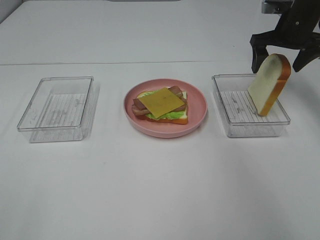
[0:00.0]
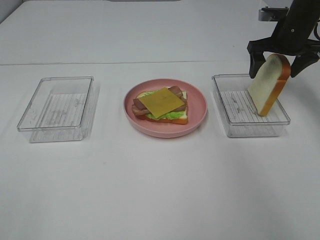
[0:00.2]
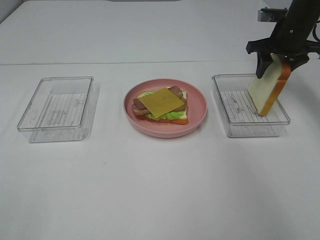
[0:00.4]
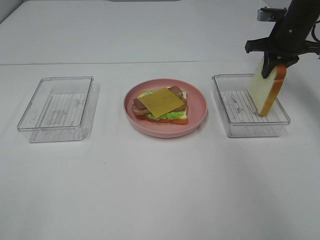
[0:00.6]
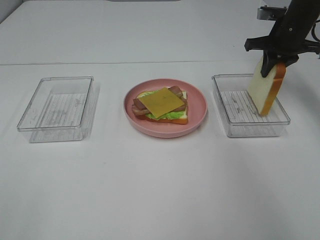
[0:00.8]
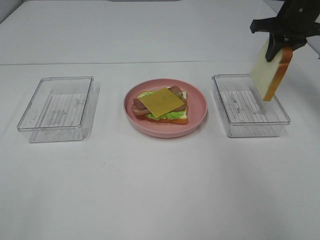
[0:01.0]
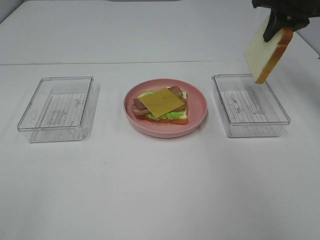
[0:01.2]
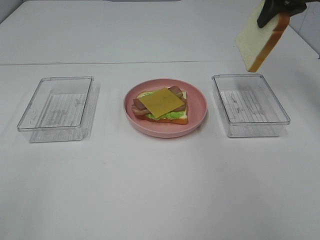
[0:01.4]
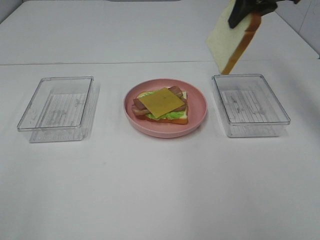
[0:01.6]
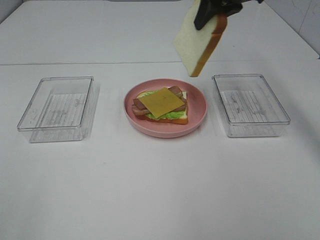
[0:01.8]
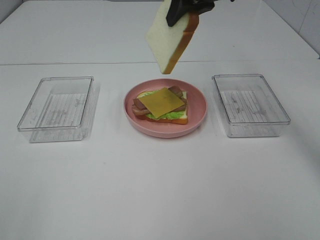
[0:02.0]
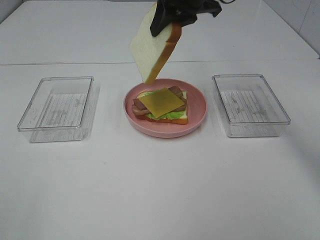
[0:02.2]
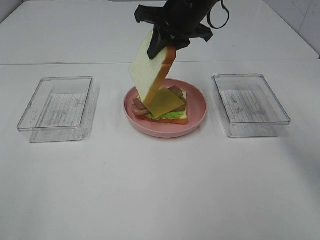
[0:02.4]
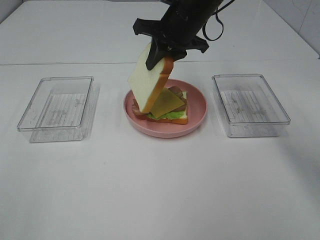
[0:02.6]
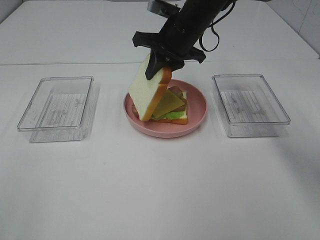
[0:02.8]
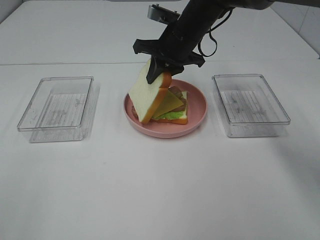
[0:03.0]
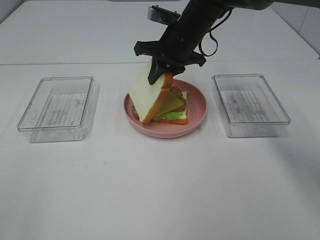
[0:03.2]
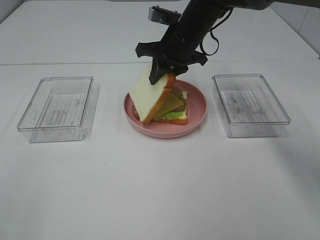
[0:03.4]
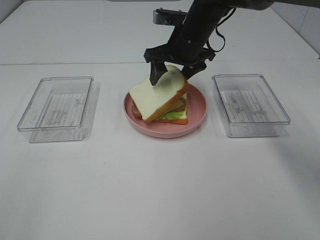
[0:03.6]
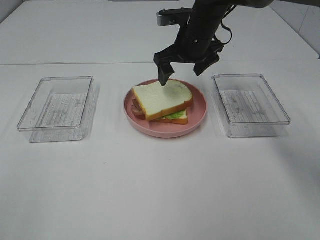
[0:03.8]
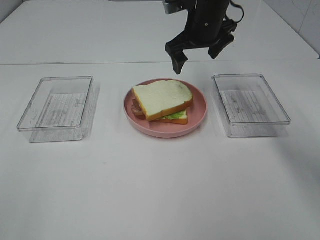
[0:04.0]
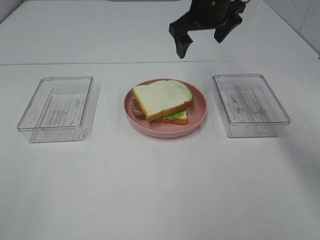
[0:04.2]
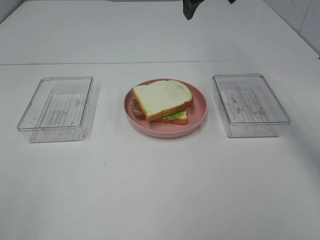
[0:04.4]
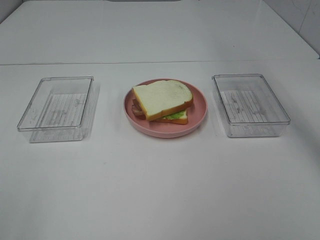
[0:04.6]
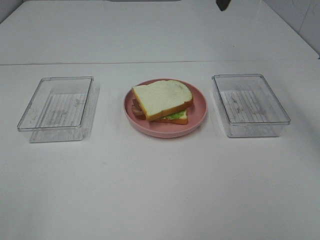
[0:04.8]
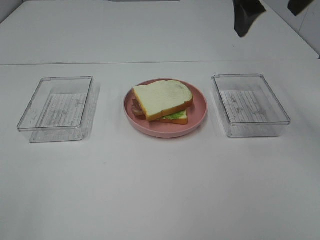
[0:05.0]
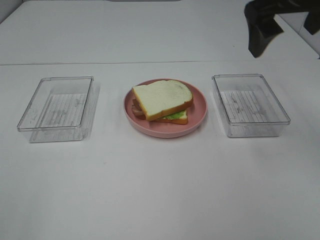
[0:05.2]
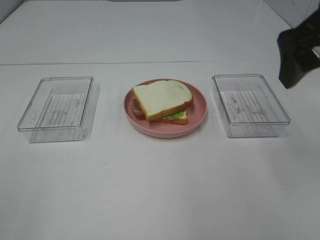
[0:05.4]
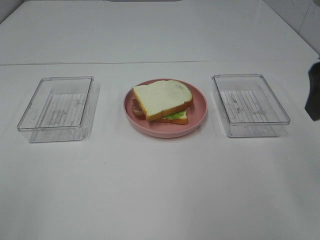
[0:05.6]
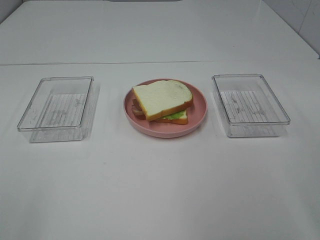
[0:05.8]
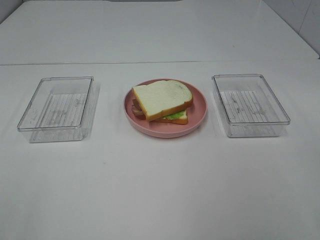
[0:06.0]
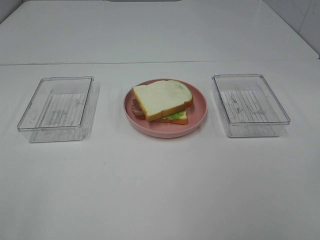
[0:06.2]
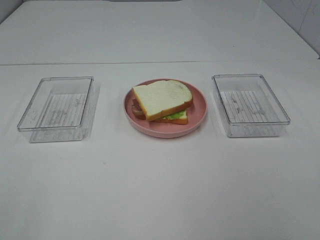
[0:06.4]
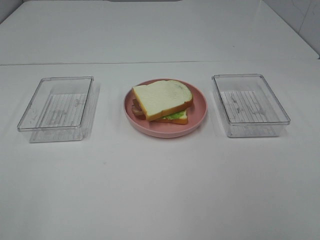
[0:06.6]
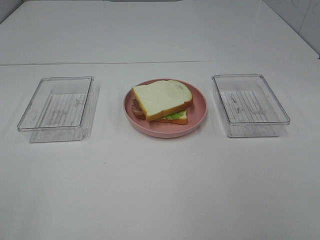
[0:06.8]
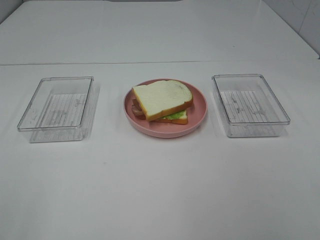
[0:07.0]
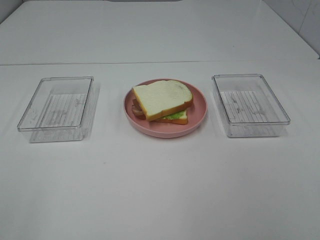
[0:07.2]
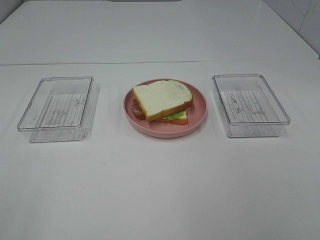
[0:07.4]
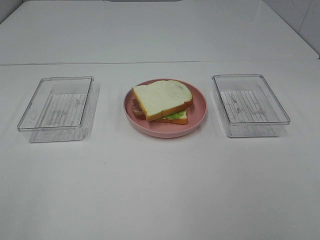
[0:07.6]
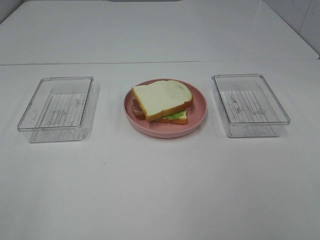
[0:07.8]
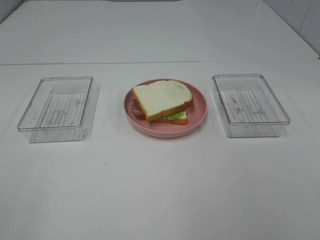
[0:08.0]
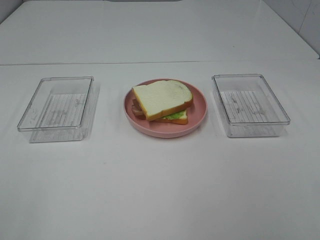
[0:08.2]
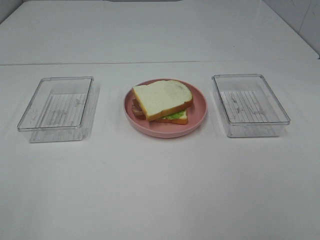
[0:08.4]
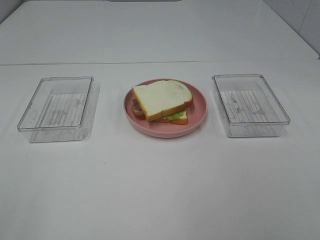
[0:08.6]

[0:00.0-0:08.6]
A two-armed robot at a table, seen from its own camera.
Task of the whole recording: Make sandwiches.
Step, 0.6 to 3.8 s: Right hand:place the bread slice on the cheese slice.
0.0 to 1.4 s: The right gripper goes some 10 cm upward, and closes its fingers.
1.4 to 2.8 s: The right gripper is displaced to the left and downward by approximately 20 cm.
2.8 to 4.4 s: The right gripper travels upward by approximately 15 cm, and opens up.
4.4 to 5.8 s: The right gripper goes roughly 30 cm backward and to the right.
7.2 to 8.6 s: Both grippers stay about where they are.

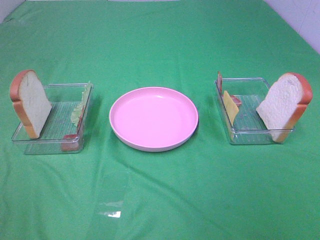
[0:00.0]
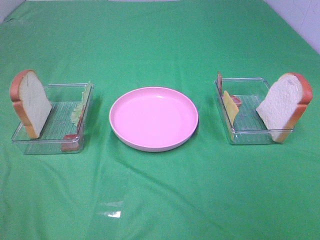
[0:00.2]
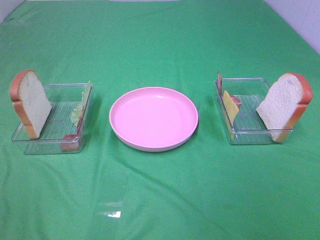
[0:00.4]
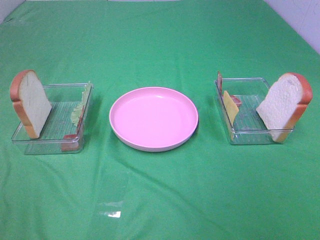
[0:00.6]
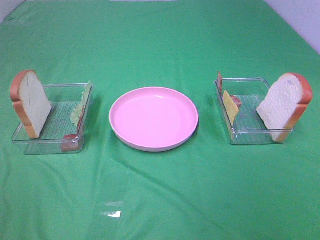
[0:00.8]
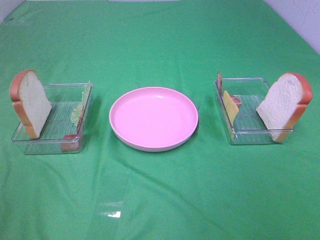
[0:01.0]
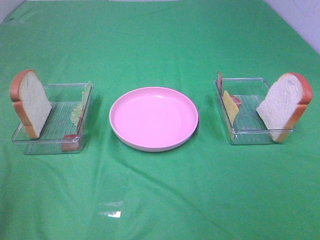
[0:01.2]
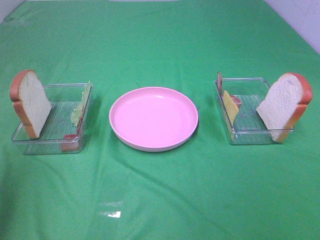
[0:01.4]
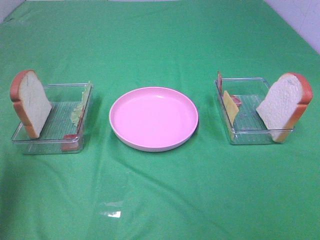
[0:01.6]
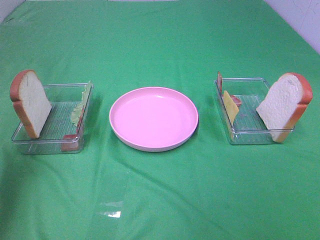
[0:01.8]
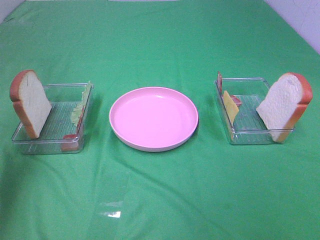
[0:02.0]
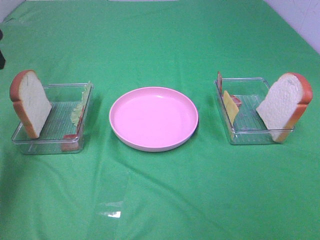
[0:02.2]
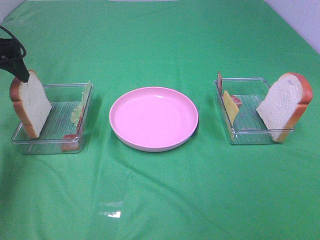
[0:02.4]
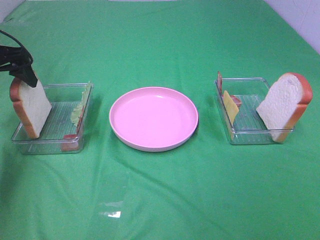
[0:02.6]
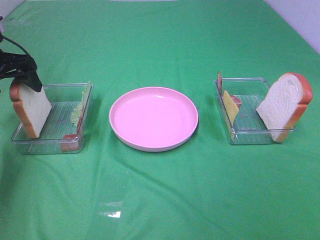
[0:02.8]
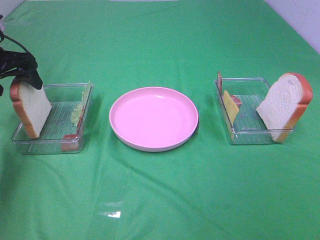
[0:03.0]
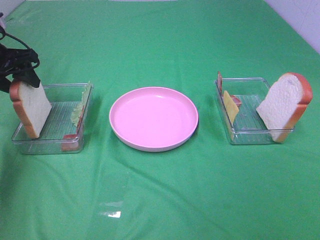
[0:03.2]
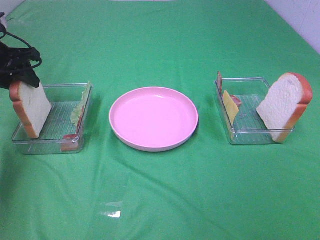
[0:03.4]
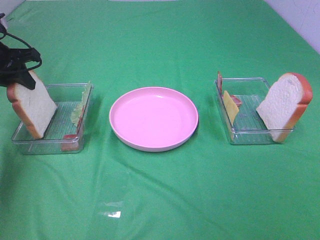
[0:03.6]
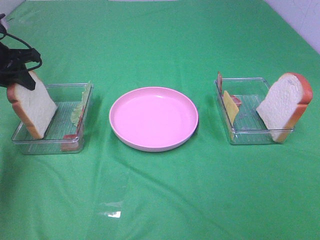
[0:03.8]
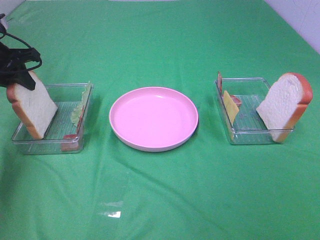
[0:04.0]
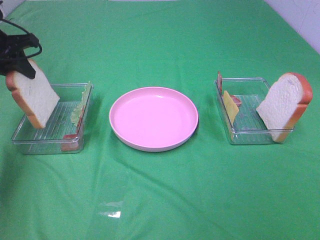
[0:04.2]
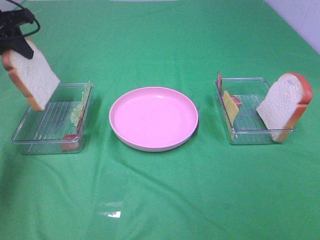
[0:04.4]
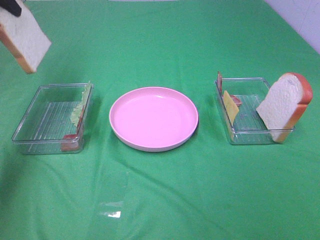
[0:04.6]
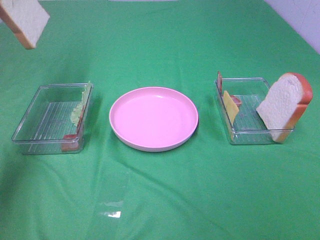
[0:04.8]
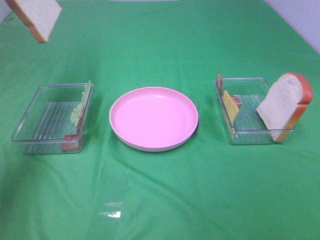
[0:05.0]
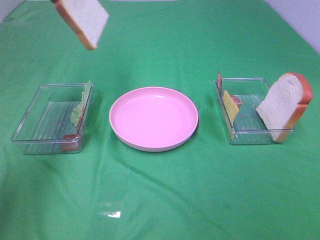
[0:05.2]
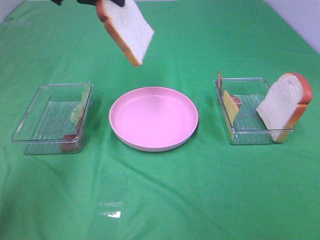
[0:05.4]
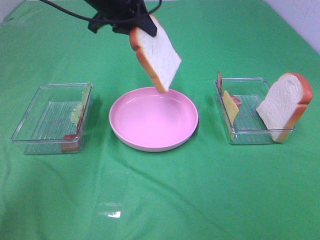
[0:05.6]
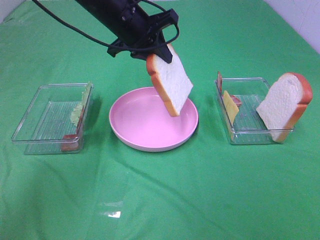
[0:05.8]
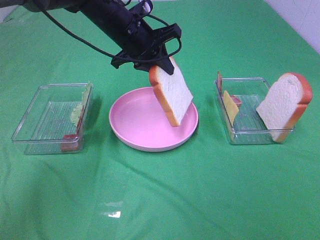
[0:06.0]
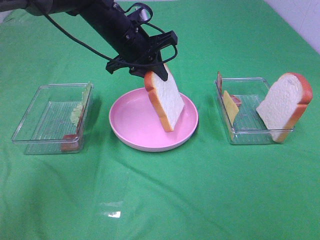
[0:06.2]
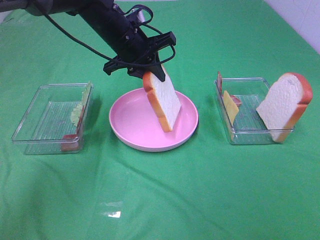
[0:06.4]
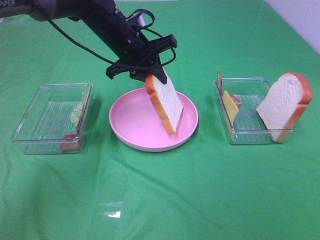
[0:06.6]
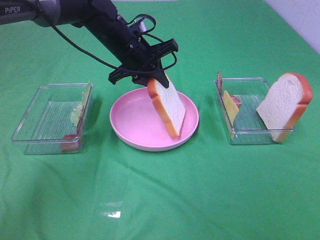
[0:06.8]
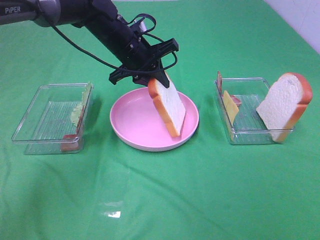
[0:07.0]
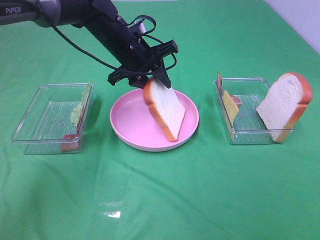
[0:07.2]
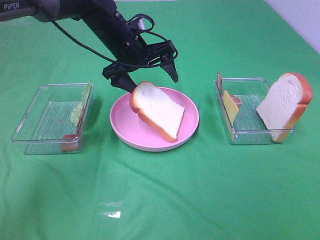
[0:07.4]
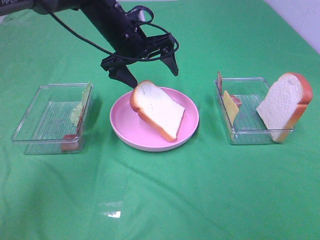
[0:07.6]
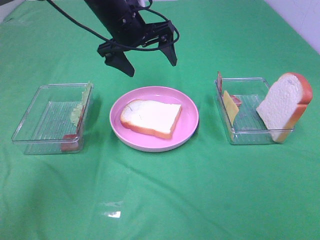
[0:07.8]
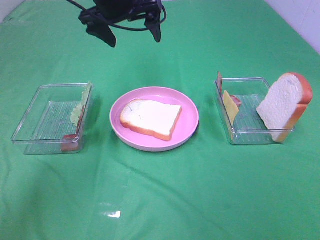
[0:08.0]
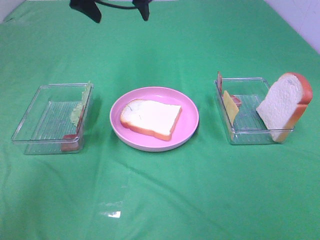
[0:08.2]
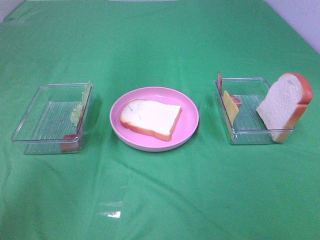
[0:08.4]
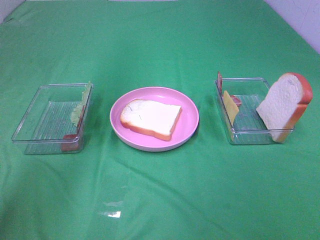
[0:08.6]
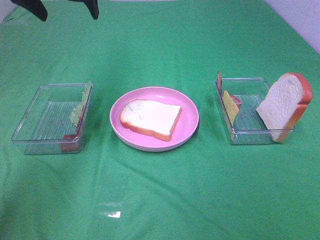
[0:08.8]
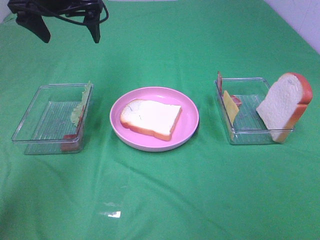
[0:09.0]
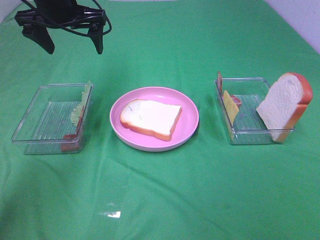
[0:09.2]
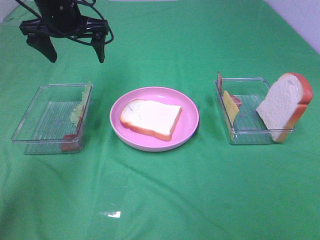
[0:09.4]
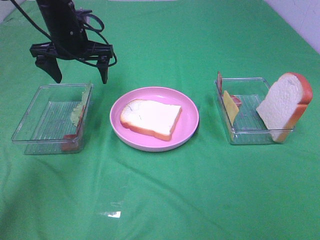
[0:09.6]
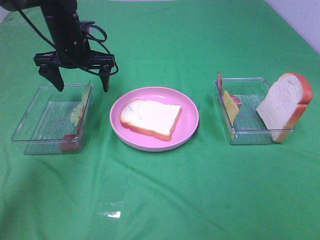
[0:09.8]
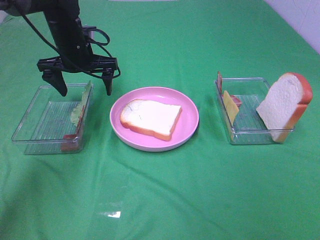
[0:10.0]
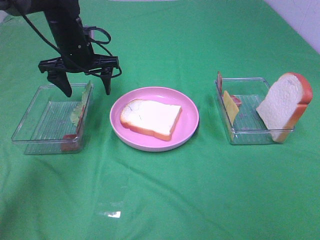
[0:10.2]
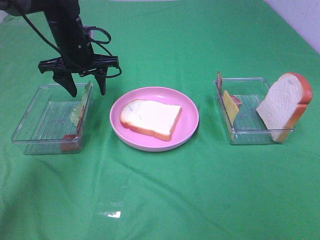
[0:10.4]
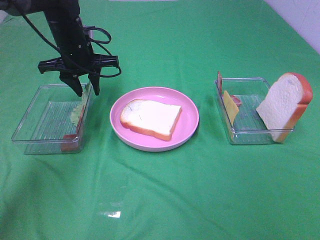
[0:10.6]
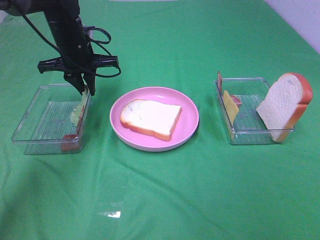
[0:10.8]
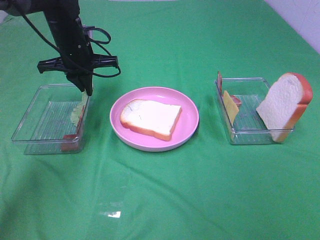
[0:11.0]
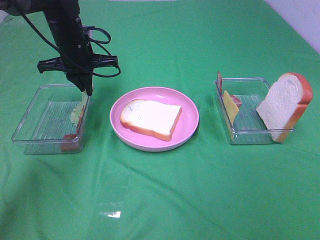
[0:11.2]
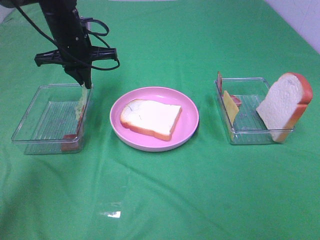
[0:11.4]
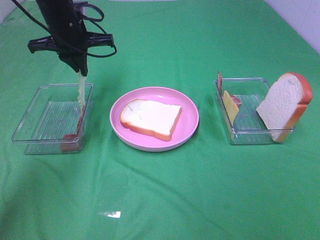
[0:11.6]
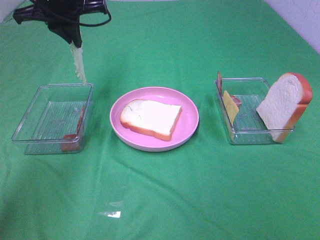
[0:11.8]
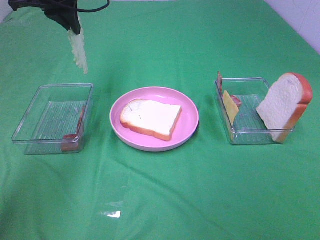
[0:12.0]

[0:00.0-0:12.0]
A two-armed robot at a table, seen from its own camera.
Task of the whole recording: Make sandwiches.
Step, 0.0 to 3.6 s: Left hand:grab the bread slice.
Step, 3.8 to 7.8 s: Left hand:place the bread slice on the plate.
Step, 8.0 to 11.2 s: Left hand:grab the lettuce slice.
0.0 to 1.6 s: The left gripper moves forward and upward, approximately 25 cm.
1.6 to 3.0 s: The left gripper moves forward and downward, roughly 25 cm.
3.0 to 4.4 s: The left gripper heads upward, covering about 5 cm, and closes.
4.4 to 6.0 s: The left gripper moves to the right, about 25 cm.
6.0 to 7.6 s: The left gripper opens up.
7.6 to 9.0 s: The left gripper goes about 15 cm to the left and upward.
9.0 to 10.4 s: The left gripper moves downward, some 10 cm, and closes.
10.4 to 12.0 s: The left gripper shifts about 15 cm upward, and closes its fingers.

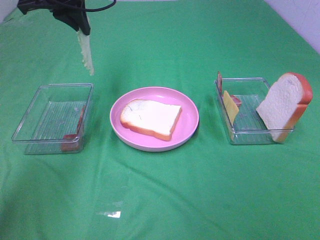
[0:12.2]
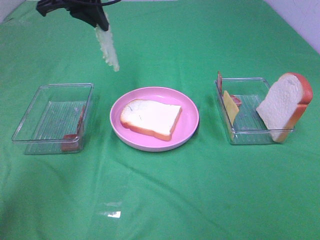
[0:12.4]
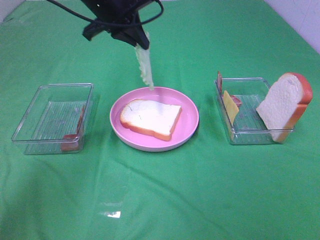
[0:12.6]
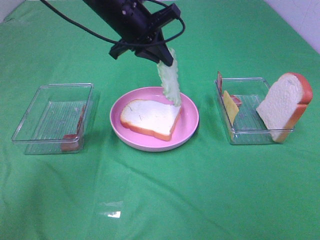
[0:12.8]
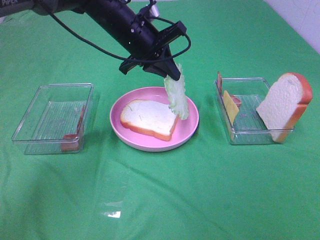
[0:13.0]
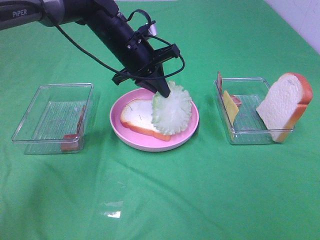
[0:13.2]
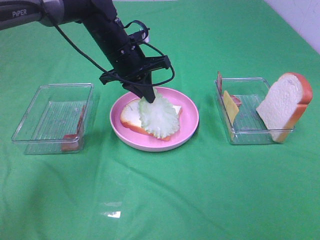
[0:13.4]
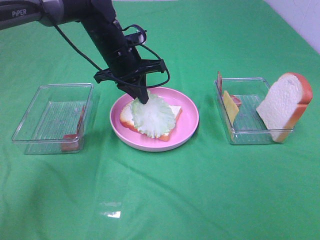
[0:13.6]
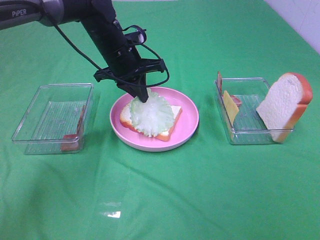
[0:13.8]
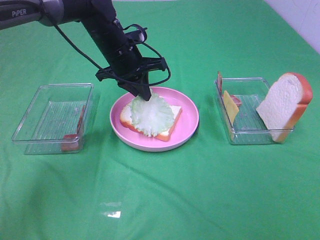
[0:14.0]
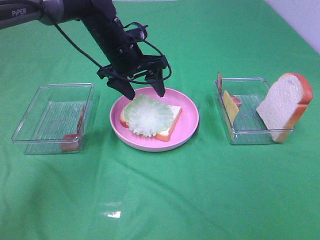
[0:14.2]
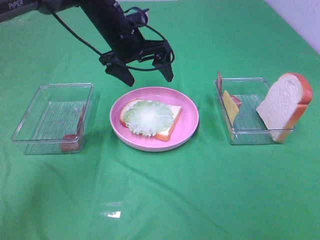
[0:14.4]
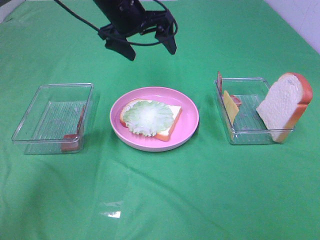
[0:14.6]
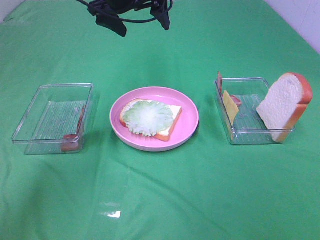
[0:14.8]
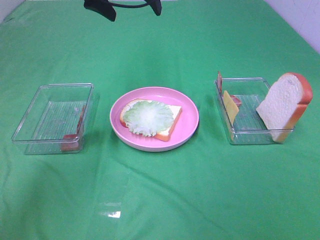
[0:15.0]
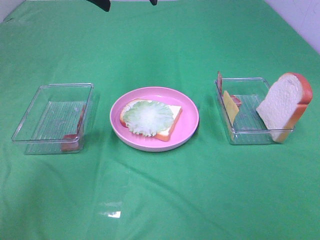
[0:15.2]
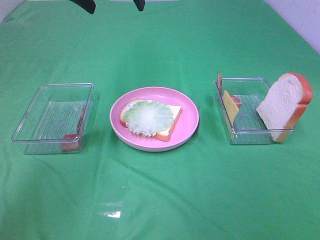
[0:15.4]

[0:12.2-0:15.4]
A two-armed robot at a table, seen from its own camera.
Task of the whole recording: Make sandwiches.
Step, 12.2 to 14.2 s: Left hand:place the lettuce slice on the bread slice.
12.2 to 13.8 s: The left gripper heads downward and to the right, covering roughly 15 cm.
13.8 to 15.4 s: The left gripper goes some 15 cm upward, and opens.
